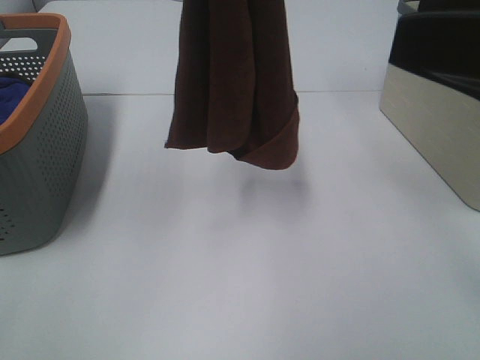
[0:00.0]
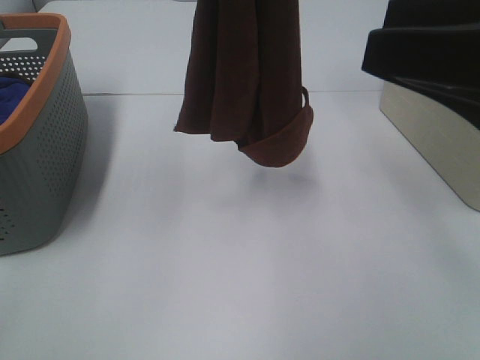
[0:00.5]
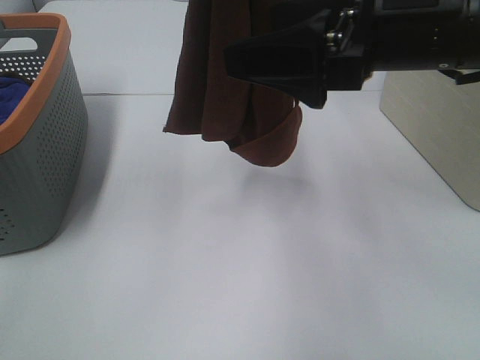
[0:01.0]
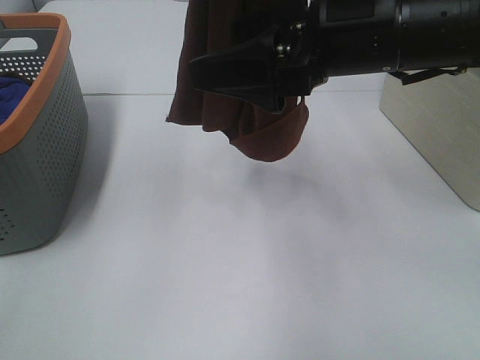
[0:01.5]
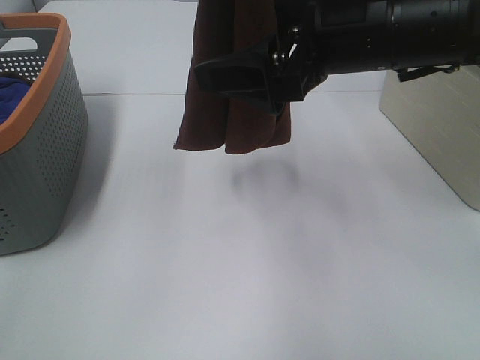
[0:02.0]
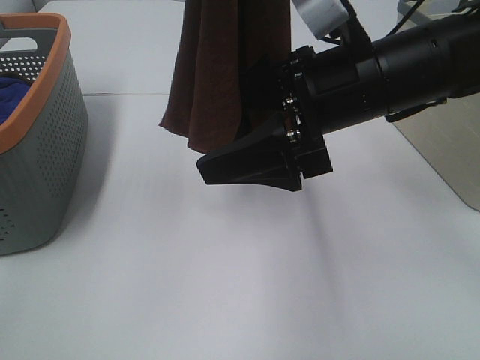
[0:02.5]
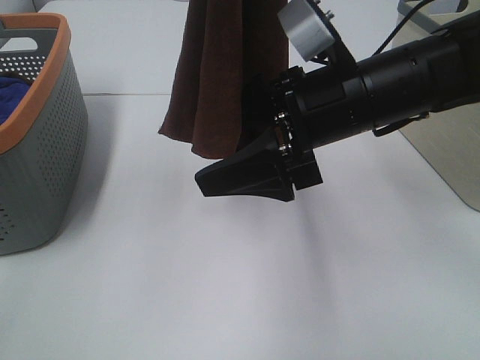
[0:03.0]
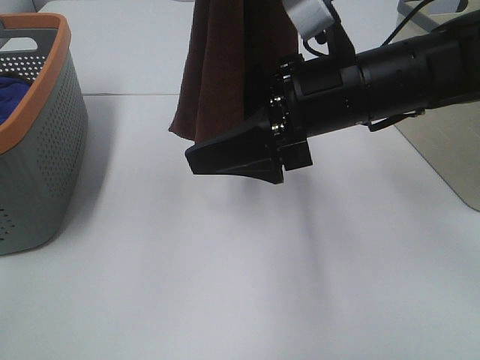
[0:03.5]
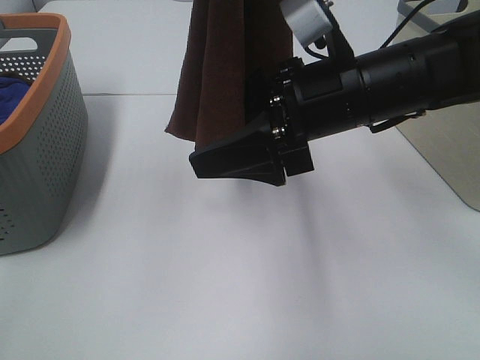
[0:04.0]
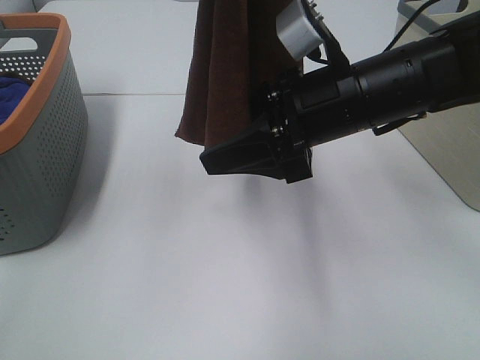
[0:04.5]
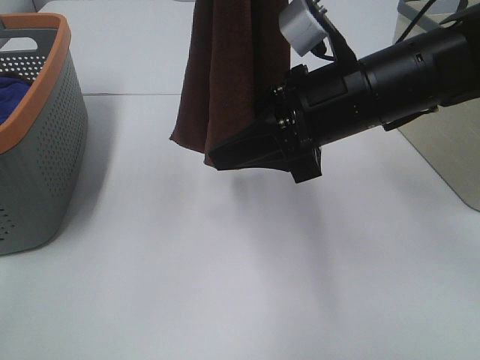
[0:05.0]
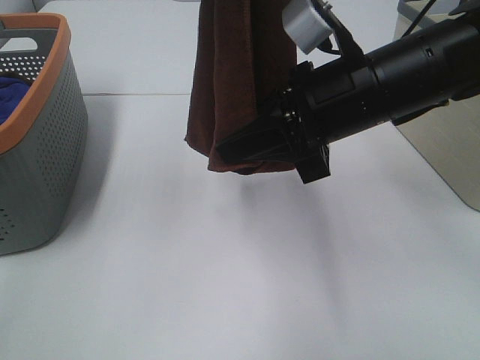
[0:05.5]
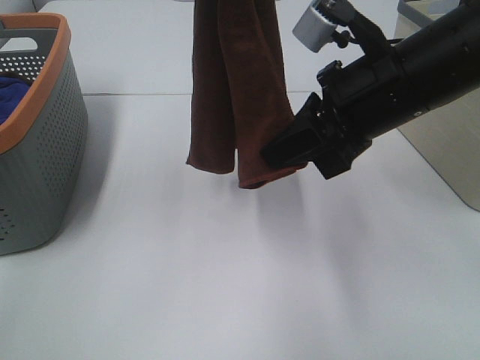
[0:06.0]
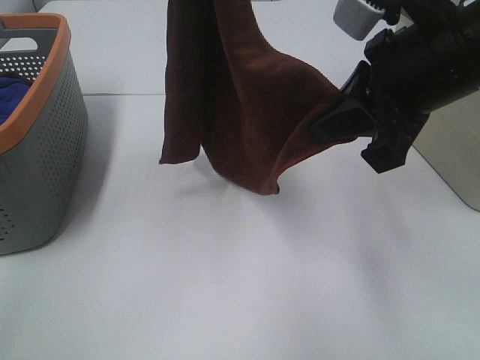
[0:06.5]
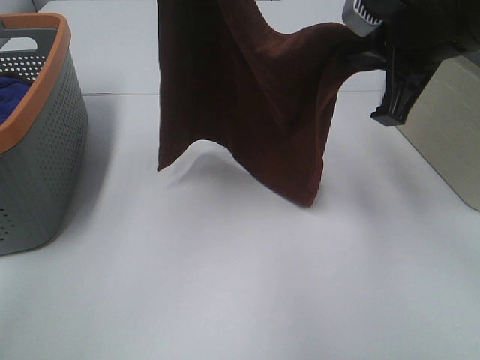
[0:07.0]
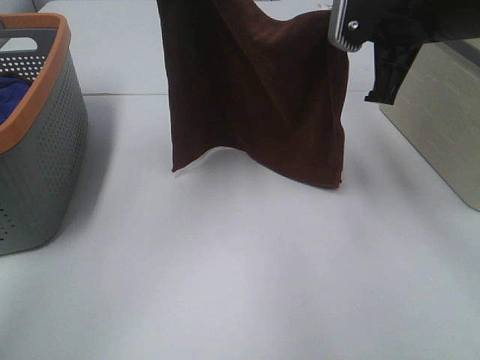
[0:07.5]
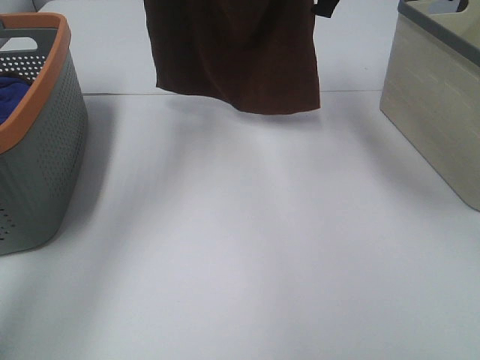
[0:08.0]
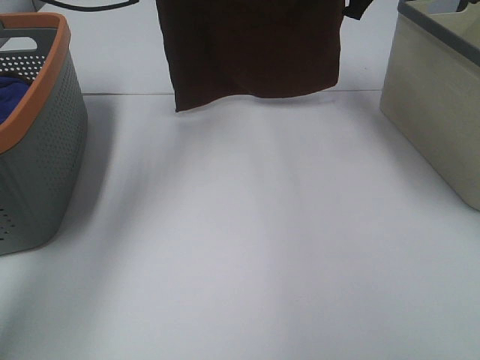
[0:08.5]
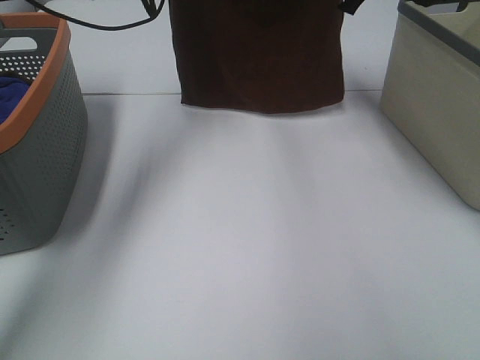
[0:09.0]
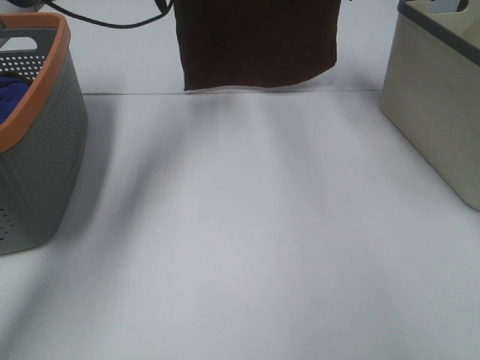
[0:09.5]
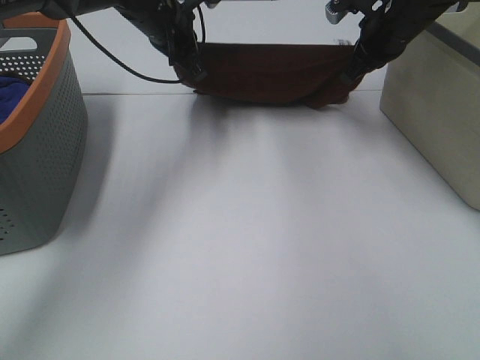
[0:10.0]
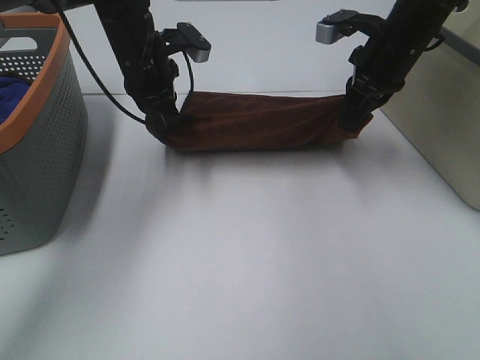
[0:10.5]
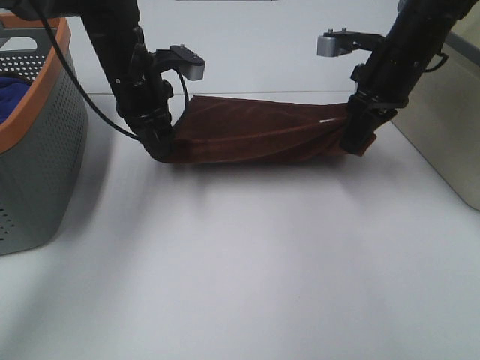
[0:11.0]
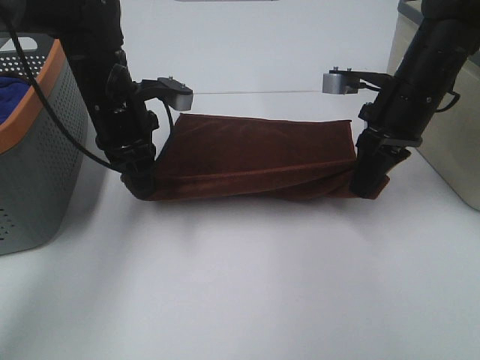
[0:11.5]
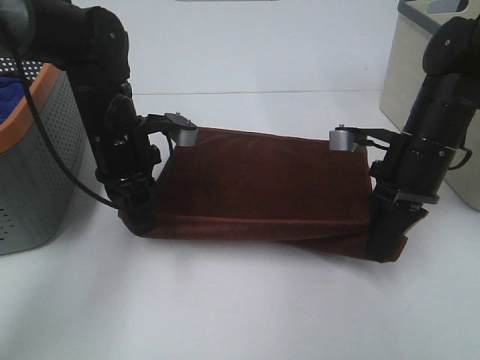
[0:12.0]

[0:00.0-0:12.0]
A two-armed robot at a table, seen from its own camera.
Task of the whole recording: Remove the towel and place it.
Step, 0:00.0 to 0:03.5: Right hand: grab a corner of the brown towel and straighten it.
Step, 0:04.0 to 0:07.5: Right hand: spread the brown towel flat on the table.
Step, 0:04.0 to 0:08.0: Left hand: spread the brown towel flat on the table.
0:00.0 to 0:02.0: The right gripper heads forward, to the left and downward, covering approximately 15 cm.
0:02.0 to 0:04.0: The right gripper moves approximately 5 cm.
0:04.0 to 0:06.0: The right gripper closes its fingers.
0:06.0 to 0:08.0: The right gripper moves forward, approximately 15 cm; the left gripper travels forward and downward by some 15 cm.
0:08.0 to 0:10.0: The left gripper goes some 15 cm downward. Meanwhile the right gripper is displaced downward, to the right and forward by some 15 cm.
0:10.0 to 0:12.0: The two grippers go about 20 cm backward and downward.

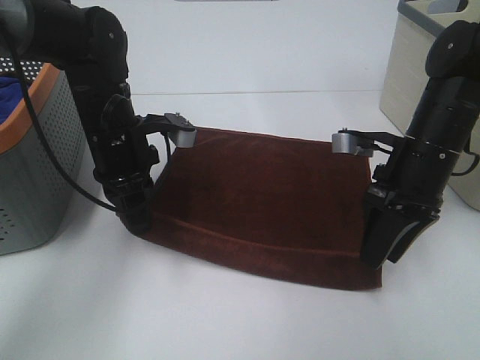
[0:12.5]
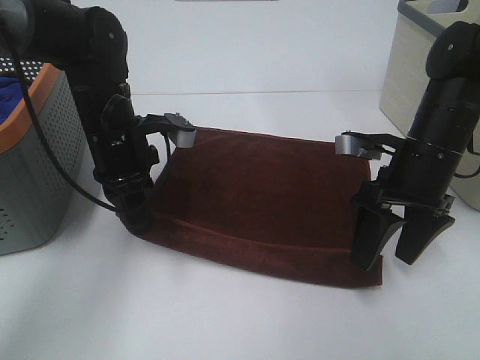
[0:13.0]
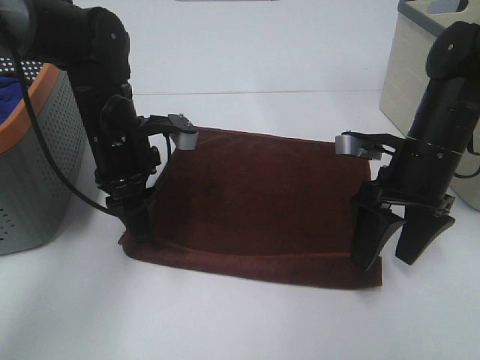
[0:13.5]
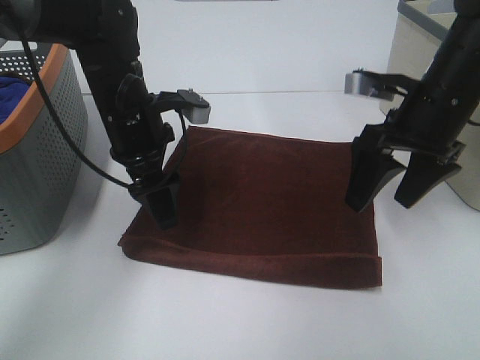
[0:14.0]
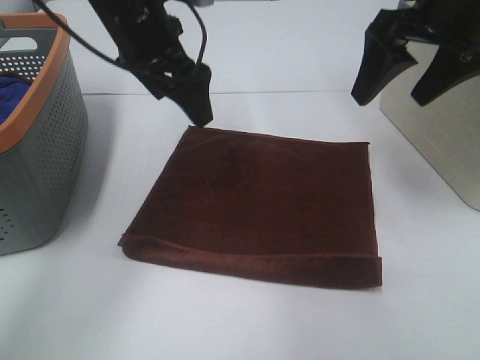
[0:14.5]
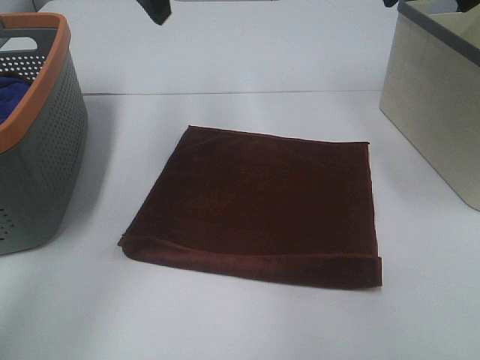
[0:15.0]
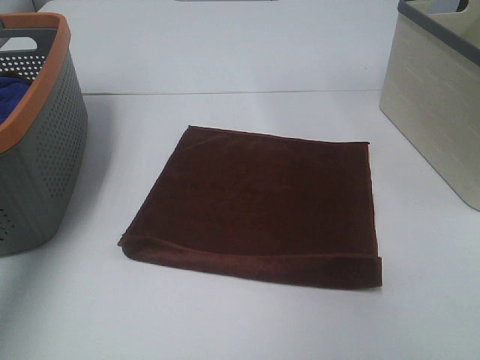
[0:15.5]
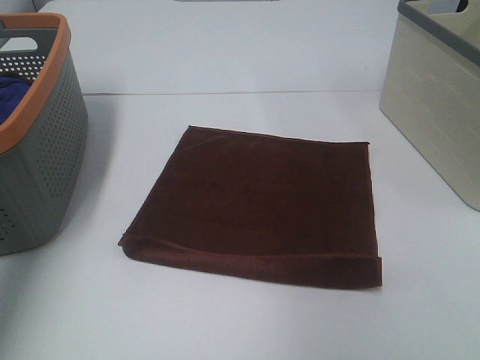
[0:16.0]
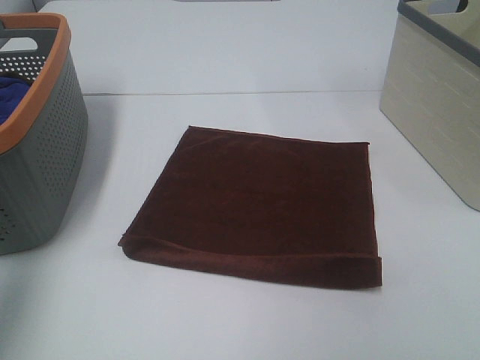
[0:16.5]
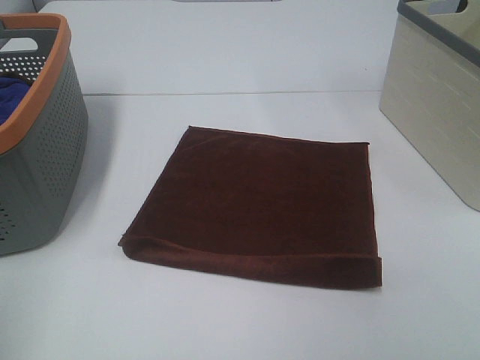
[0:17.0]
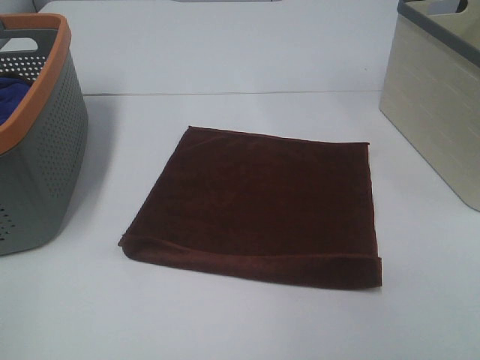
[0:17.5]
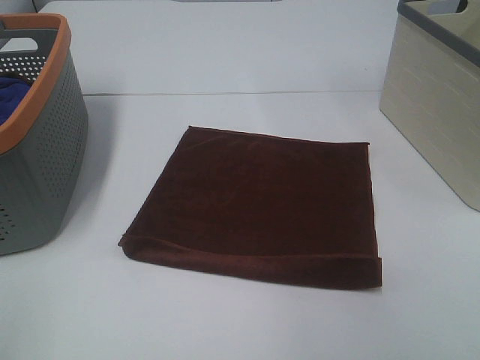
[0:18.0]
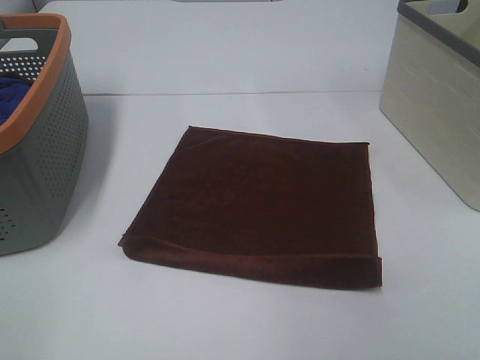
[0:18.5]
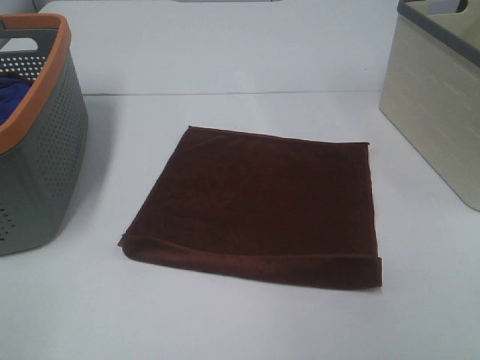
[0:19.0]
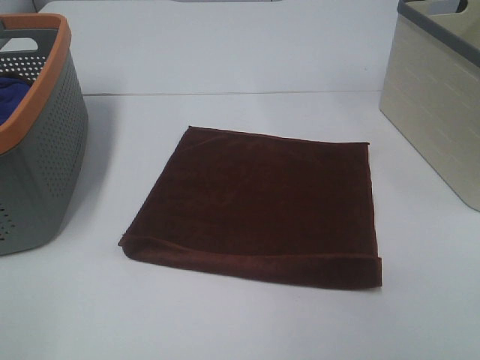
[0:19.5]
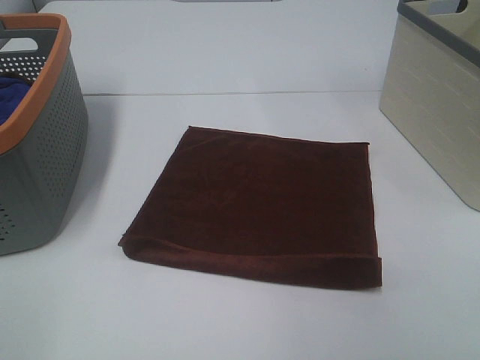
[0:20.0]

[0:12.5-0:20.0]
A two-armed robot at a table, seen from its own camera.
Task of the whole recording: Remove the towel and place it.
0:12.5 to 0:14.5: The grippers both shift upward by approximately 15 cm. The left gripper opens up.
0:14.5 to 0:16.5: The left gripper heads backward, to the left and upward, covering approximately 35 cm, while the right gripper moves backward, roughly 30 cm.
0:16.5 to 0:18.0: The left gripper moves backward and downward, approximately 20 cm.

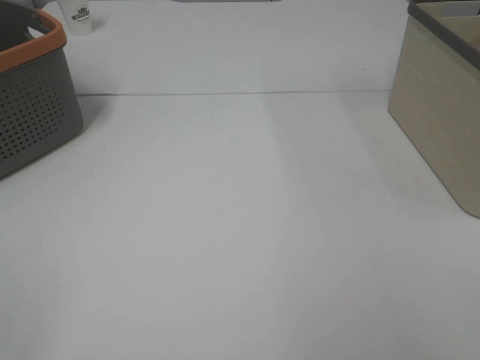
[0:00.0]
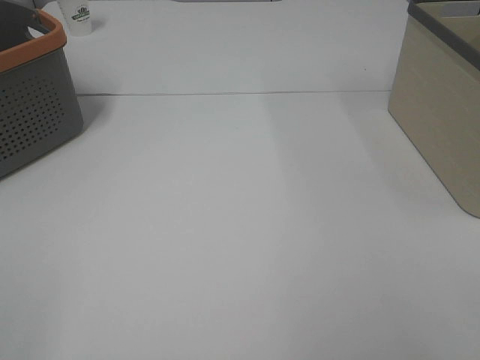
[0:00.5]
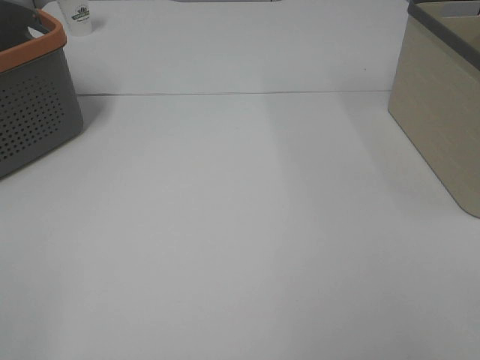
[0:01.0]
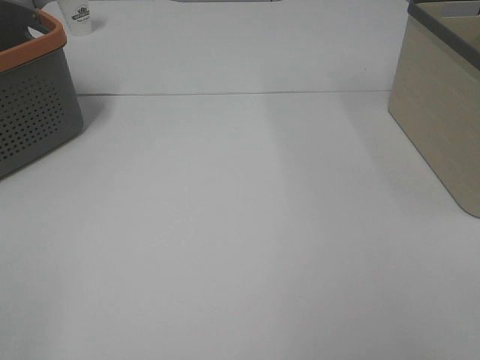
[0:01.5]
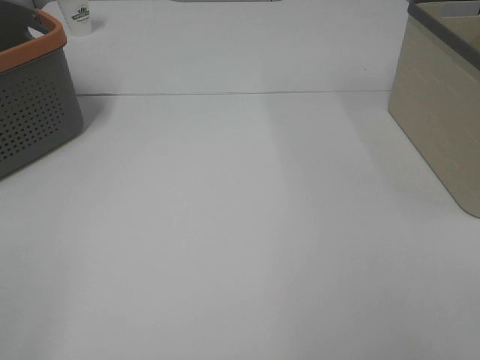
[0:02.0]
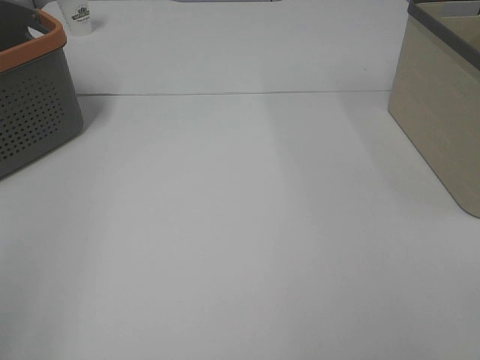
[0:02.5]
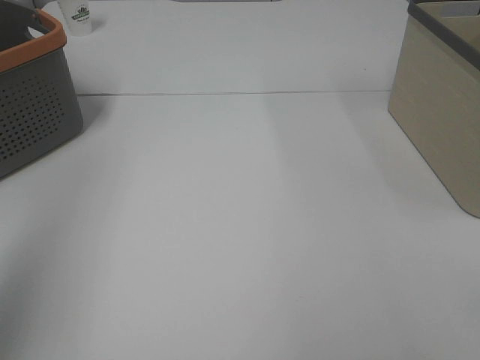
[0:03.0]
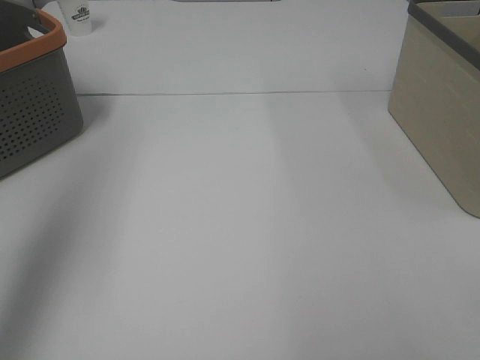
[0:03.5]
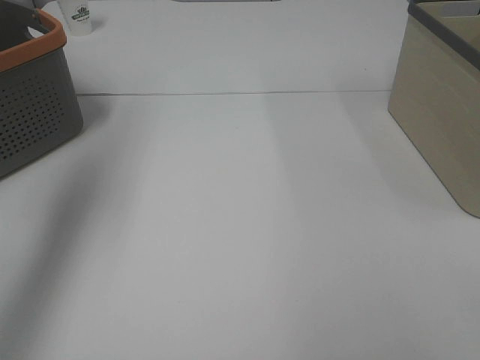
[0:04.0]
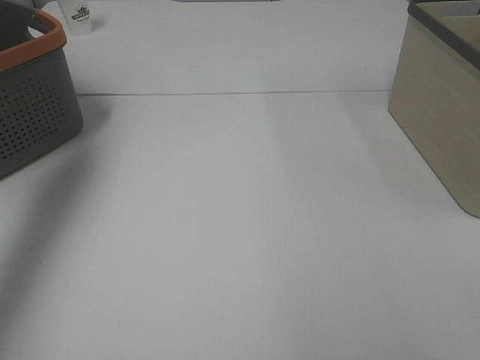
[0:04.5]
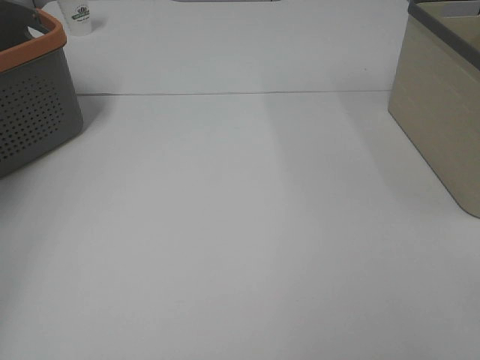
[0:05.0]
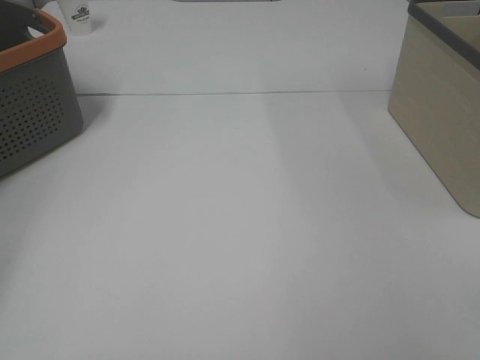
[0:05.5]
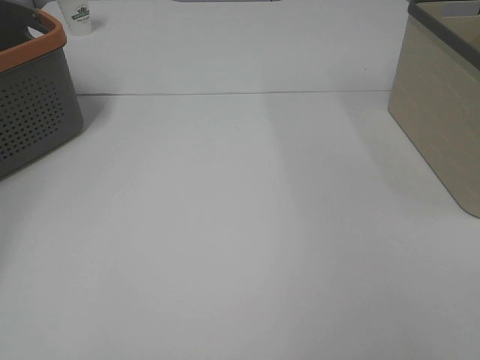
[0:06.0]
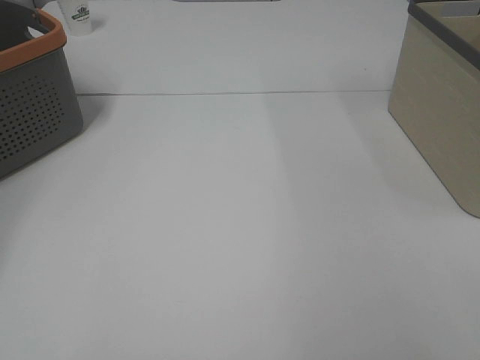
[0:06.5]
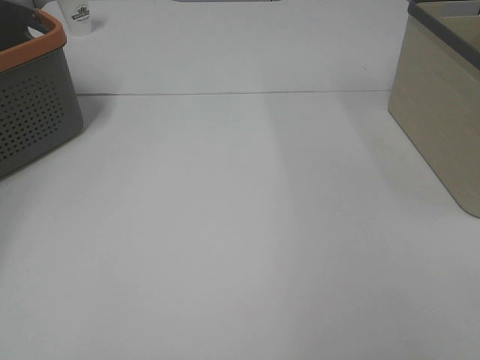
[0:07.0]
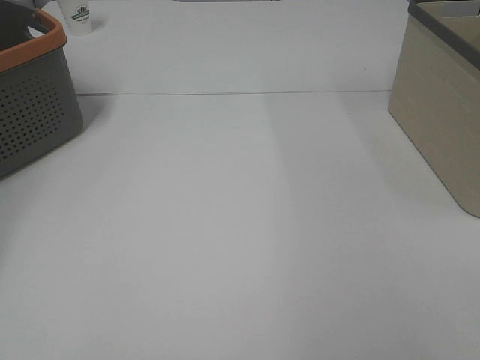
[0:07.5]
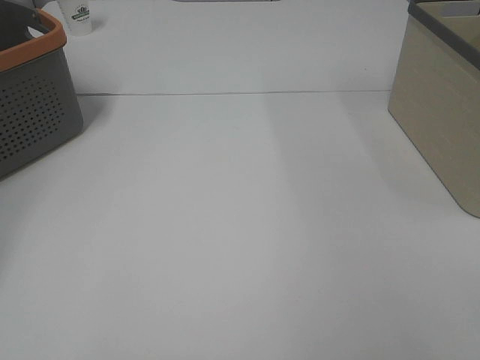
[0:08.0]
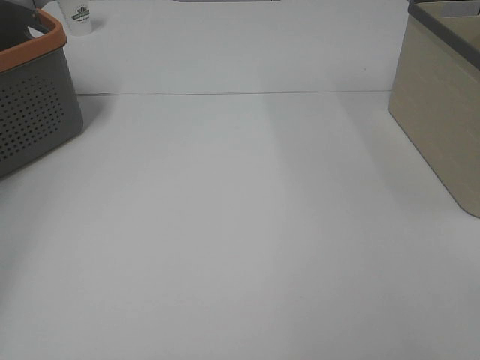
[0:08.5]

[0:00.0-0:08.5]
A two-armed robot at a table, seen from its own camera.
Task of the whole recording: Remove the towel and place it.
0:02.0 to 0:04.0: The left gripper heads forward, covering approximately 30 cm.
0:04.0 to 0:06.5: The left gripper travels to the left, downward and forward by some 30 cm.
